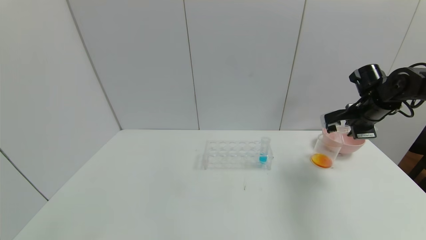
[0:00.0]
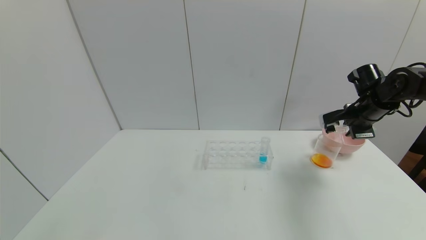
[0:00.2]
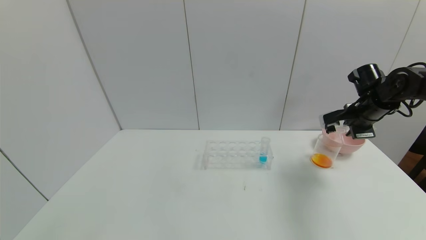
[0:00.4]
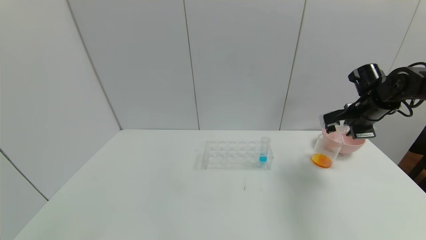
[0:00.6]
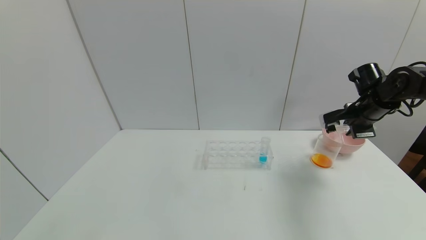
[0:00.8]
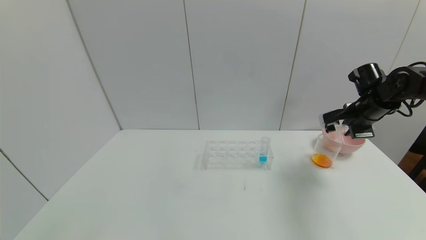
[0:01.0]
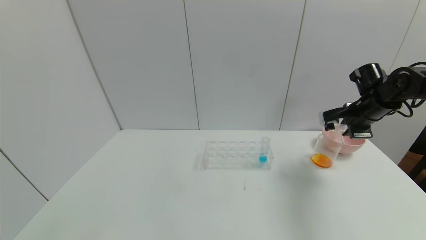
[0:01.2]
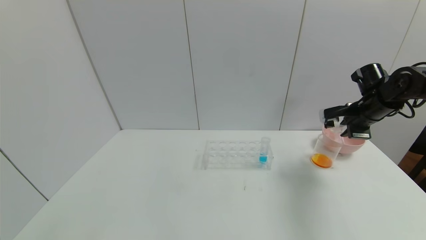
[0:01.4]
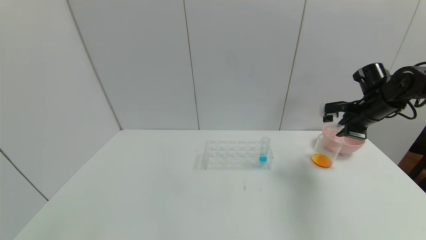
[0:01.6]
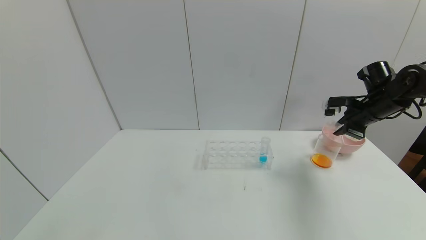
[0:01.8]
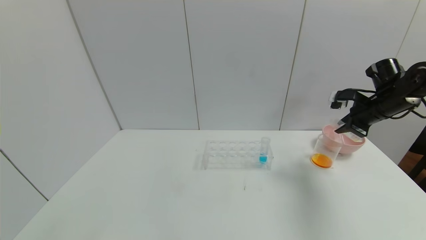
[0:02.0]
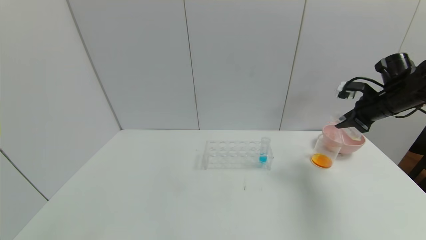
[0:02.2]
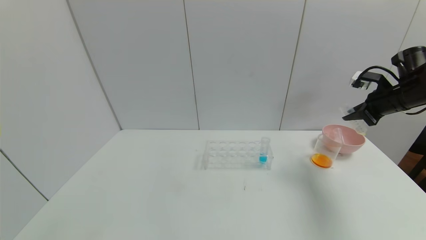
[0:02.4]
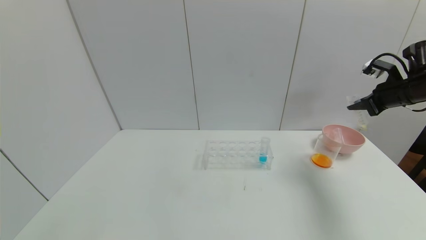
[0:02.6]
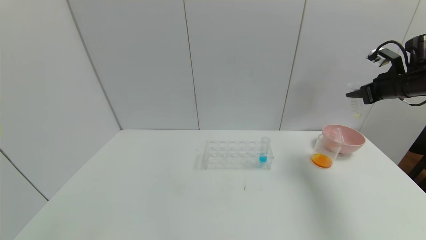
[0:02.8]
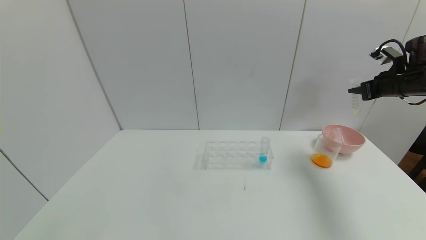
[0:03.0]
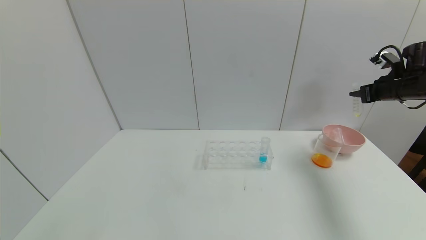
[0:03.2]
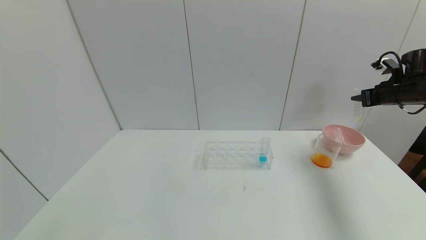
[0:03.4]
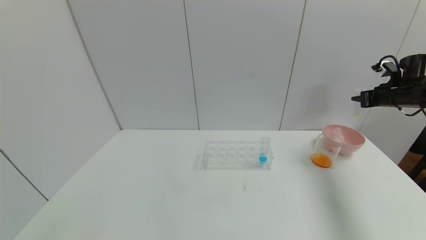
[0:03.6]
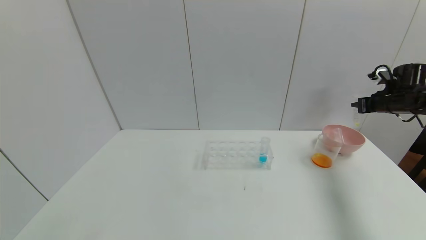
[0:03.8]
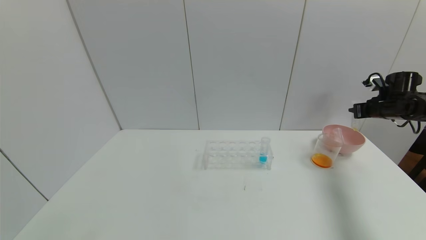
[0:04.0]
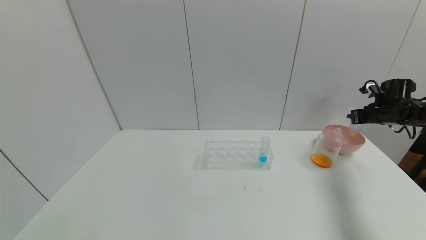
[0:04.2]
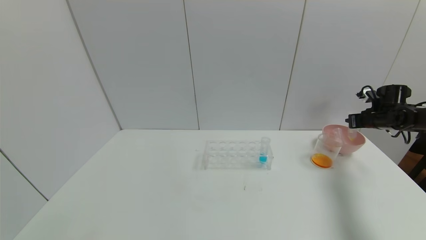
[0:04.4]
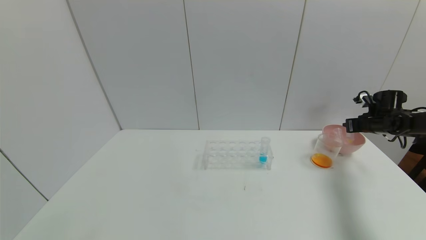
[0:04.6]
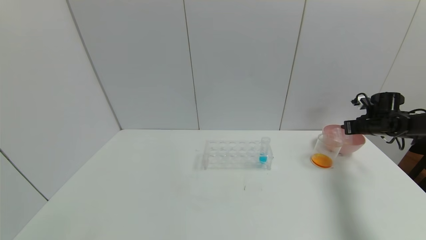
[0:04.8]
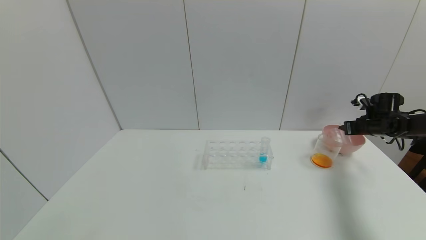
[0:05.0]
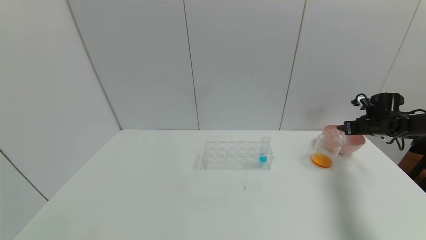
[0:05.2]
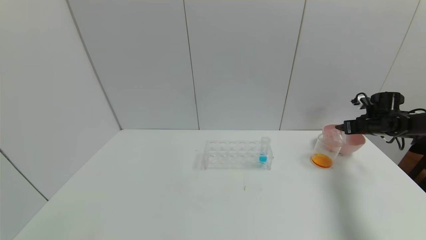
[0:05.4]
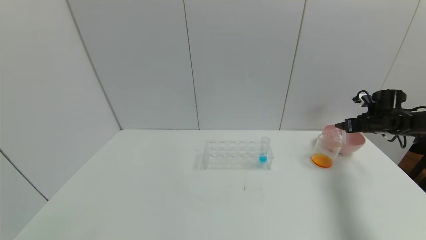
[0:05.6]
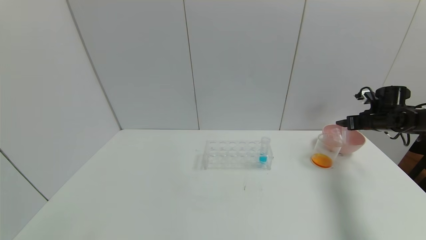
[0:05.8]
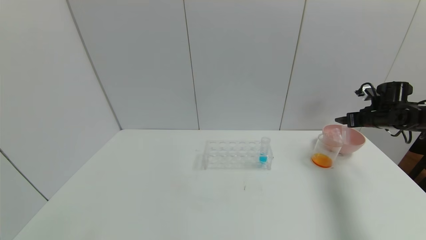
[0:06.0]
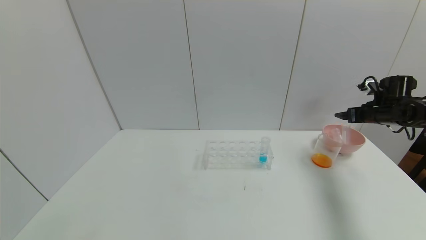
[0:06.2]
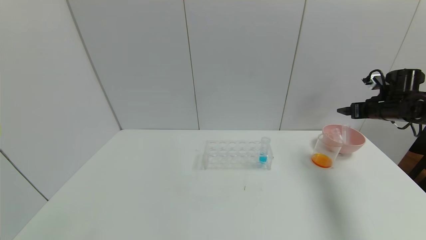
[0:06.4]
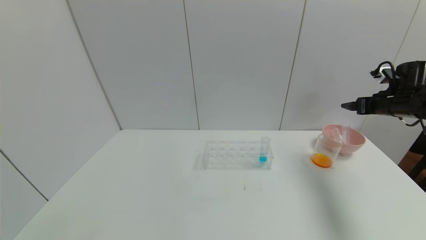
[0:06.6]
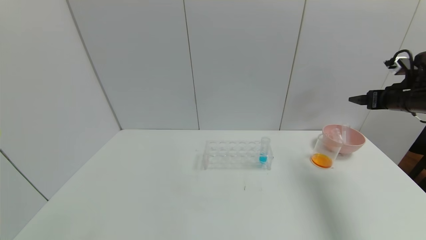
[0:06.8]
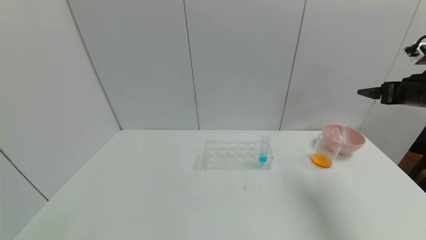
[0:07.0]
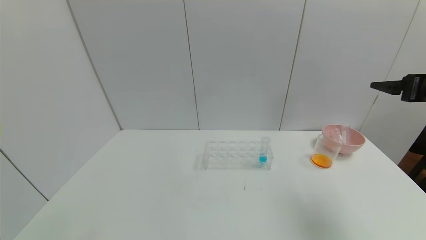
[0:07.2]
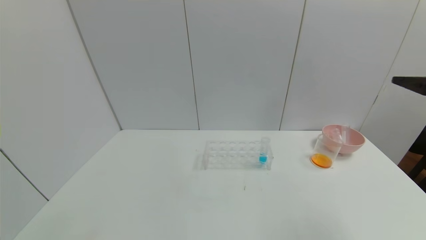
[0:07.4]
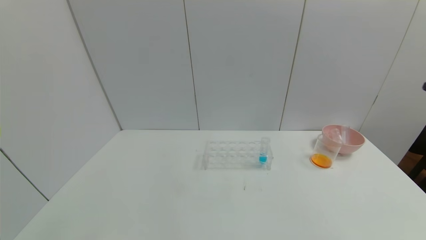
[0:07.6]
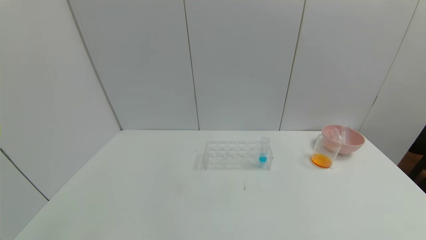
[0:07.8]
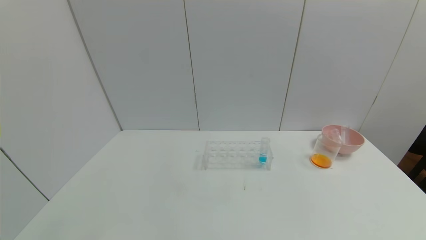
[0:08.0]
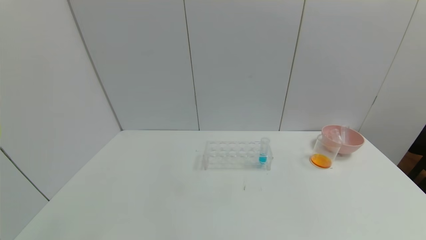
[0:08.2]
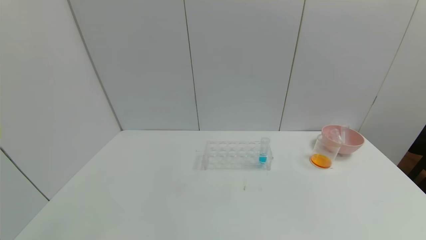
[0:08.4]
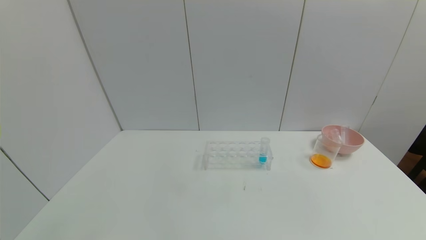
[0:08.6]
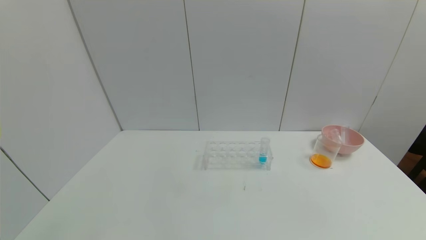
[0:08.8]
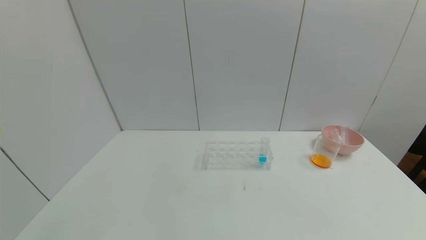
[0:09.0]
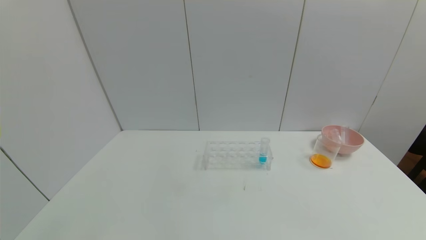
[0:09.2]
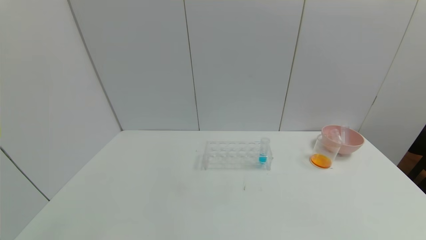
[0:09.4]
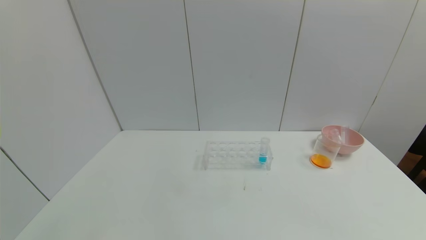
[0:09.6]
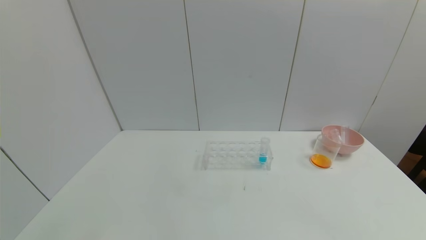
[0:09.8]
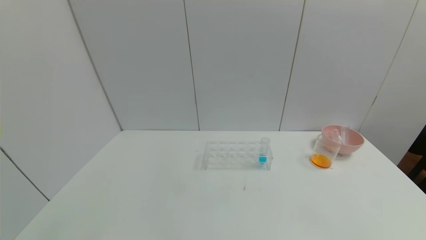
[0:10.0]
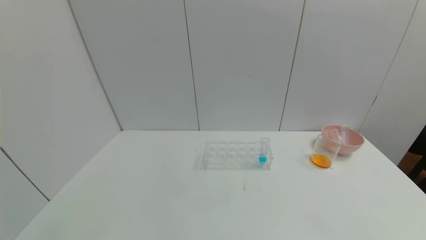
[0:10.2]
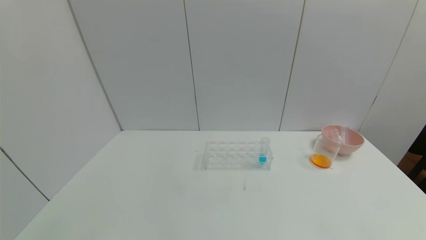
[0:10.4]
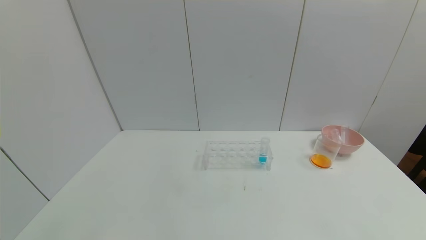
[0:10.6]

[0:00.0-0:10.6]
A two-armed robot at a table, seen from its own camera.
Task of the whole recording: pick up the test tube with yellow pigment and the test tube with red pigment by grippers and pour them into the beaker.
Step, 0:00.2 to 0:05.2: Place the test tube into the bowl with the right gripper.
0:00.0 to 0:01.6: There are only small adjustments of the grippers.
0:01.6 to 0:03.0: The right gripper moves to the right and upward, some 10 cm.
0:03.0 to 0:04.6: The right gripper is displaced downward and forward by roughly 15 cm.
0:04.6 to 0:06.0: The right gripper opens.
0:06.0 to 0:07.6: The right gripper shifts approximately 35 cm backward and upward.
